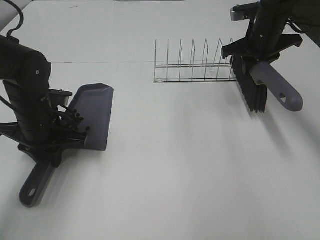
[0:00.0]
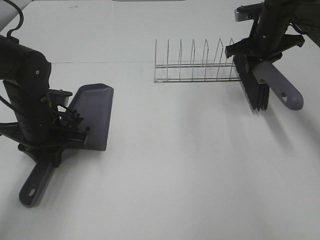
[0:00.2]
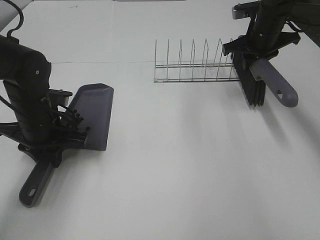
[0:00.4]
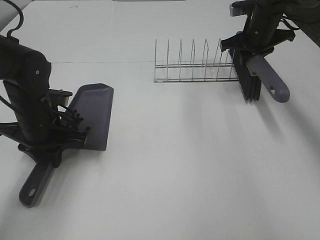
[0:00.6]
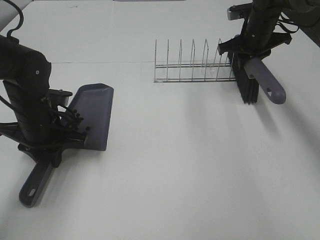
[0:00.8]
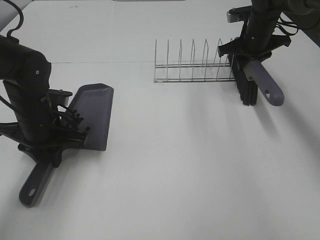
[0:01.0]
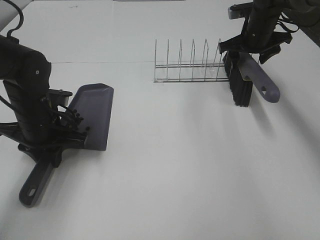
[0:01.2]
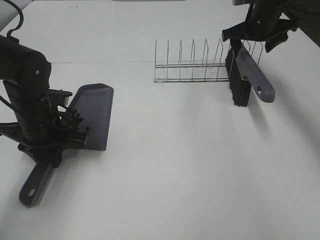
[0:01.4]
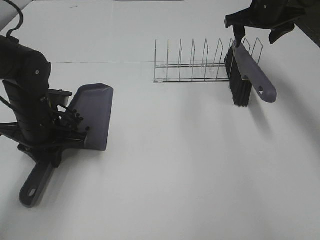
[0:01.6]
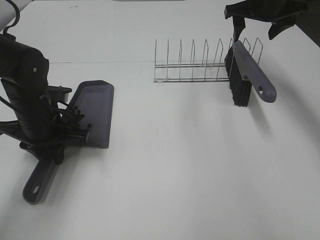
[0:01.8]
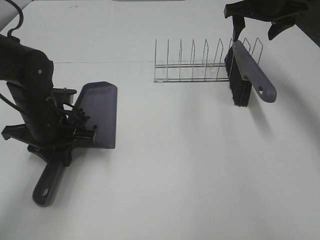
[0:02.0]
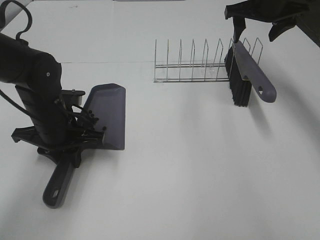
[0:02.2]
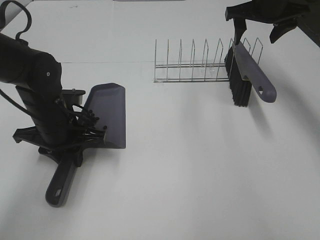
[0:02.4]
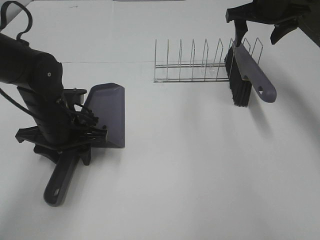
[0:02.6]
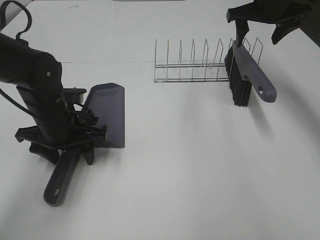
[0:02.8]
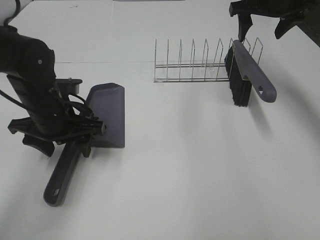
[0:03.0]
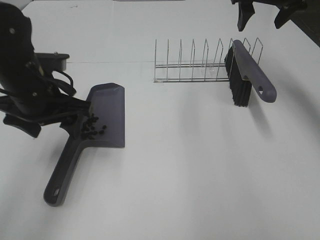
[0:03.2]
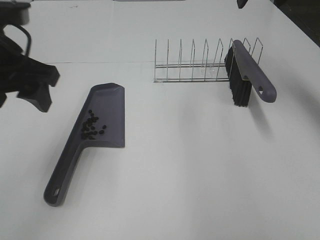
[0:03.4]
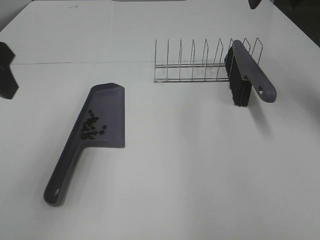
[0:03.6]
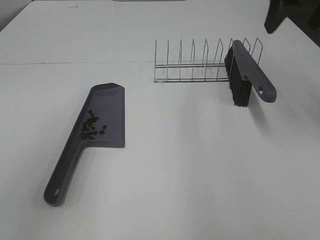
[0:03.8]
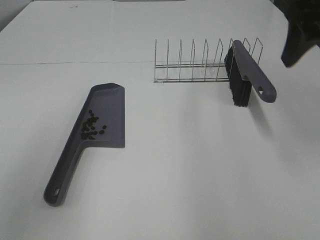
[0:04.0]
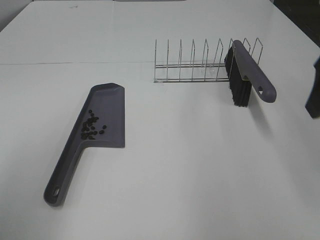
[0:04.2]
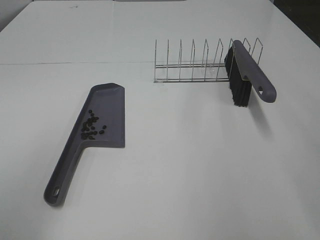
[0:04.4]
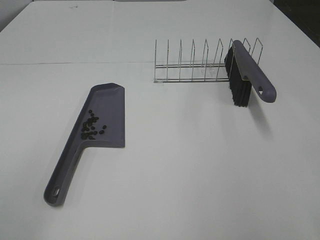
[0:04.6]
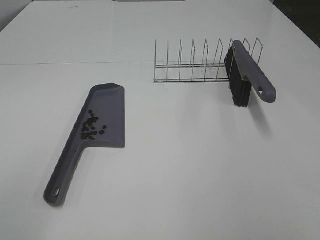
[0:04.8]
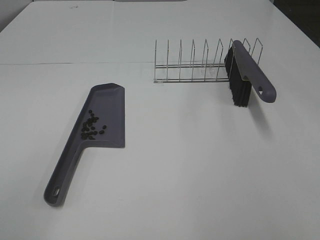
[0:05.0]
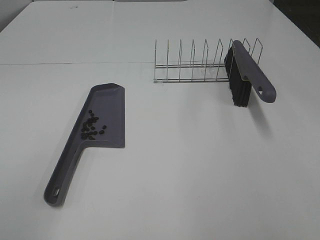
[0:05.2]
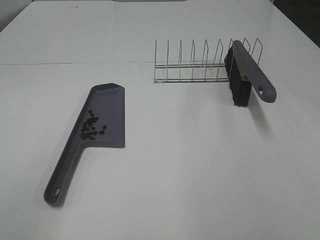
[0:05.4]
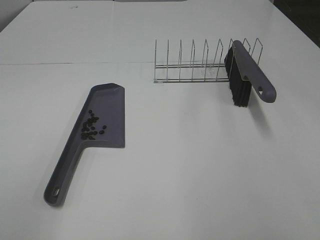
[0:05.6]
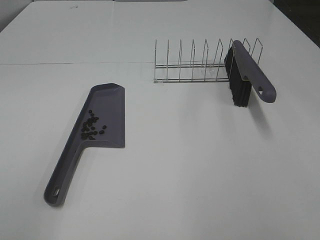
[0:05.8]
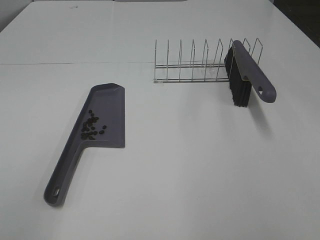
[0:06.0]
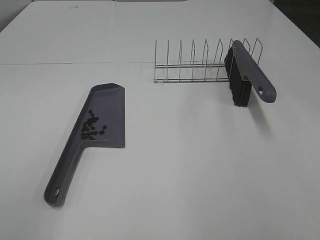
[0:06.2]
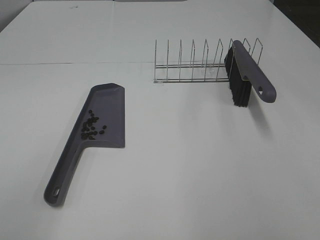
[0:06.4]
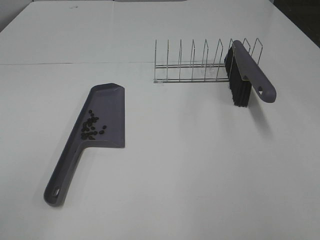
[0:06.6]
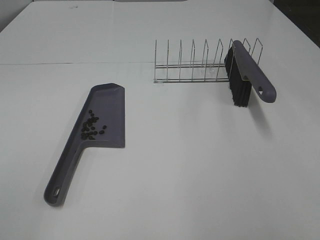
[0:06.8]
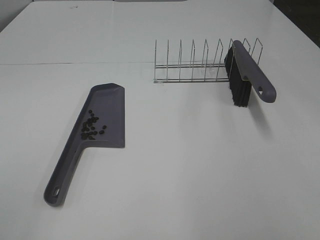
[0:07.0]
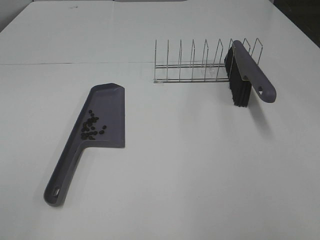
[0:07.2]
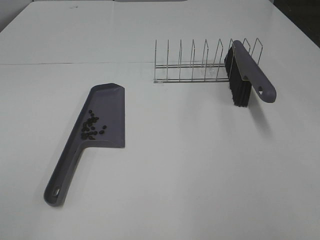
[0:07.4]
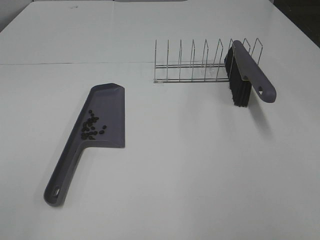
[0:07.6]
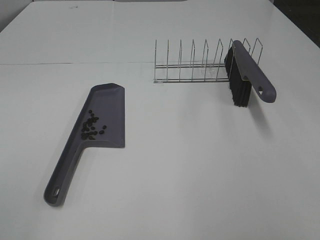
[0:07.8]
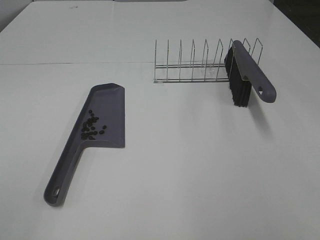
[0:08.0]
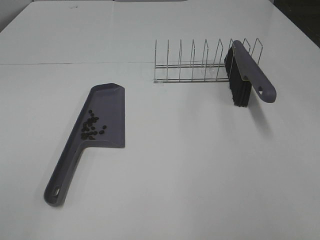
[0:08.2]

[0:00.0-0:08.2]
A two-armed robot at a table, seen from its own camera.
Task of the whole recording: Sweep Coffee Bean.
Step, 0:01.4 to 0:02.8: Left hand:place the dustpan on the table.
0:00.0 to 0:01.6: The right gripper travels upward by approximately 5 cm, and opens.
0:01.6 to 0:03.2: The two grippers go approximately 5 cm upward. The left gripper opens.
0:03.2 to 0:05.0: The left gripper moves backward and to the left, approximately 30 cm. The right gripper shifts about 50 cm backward.
